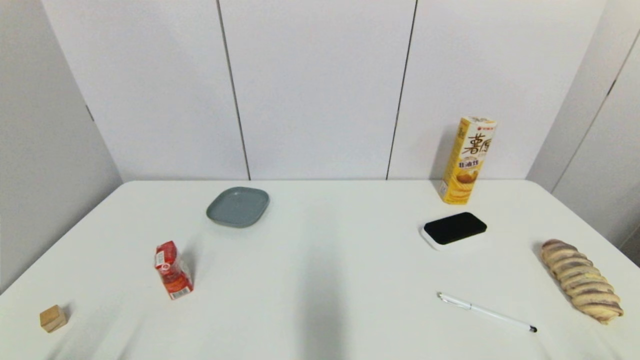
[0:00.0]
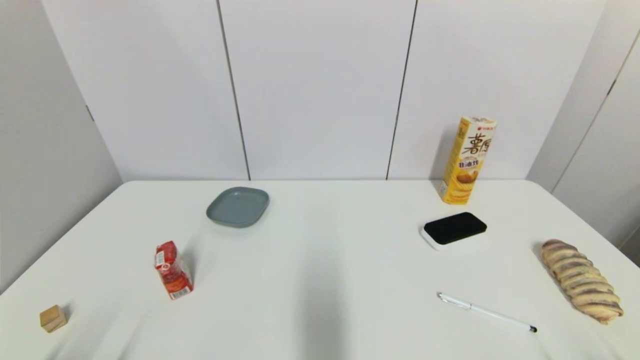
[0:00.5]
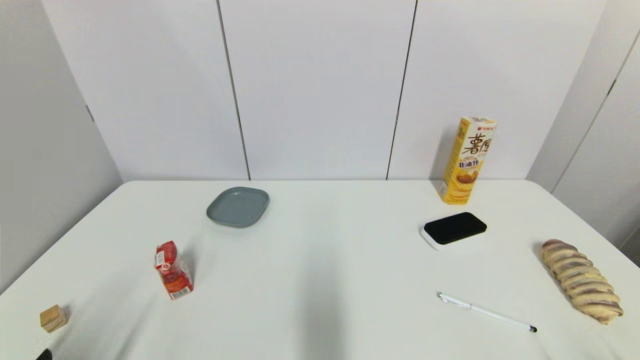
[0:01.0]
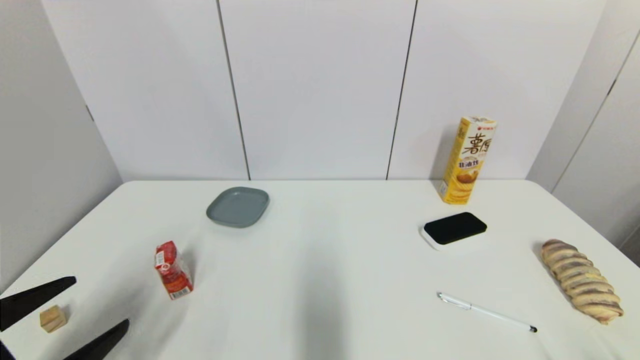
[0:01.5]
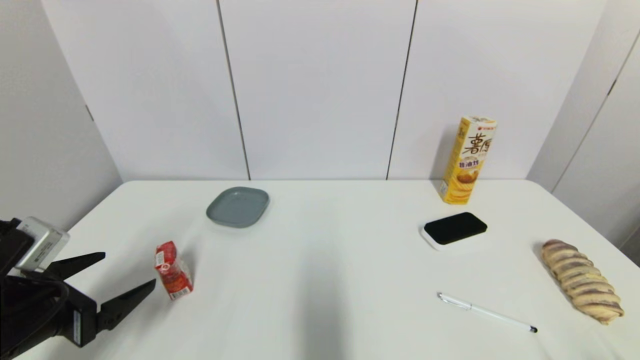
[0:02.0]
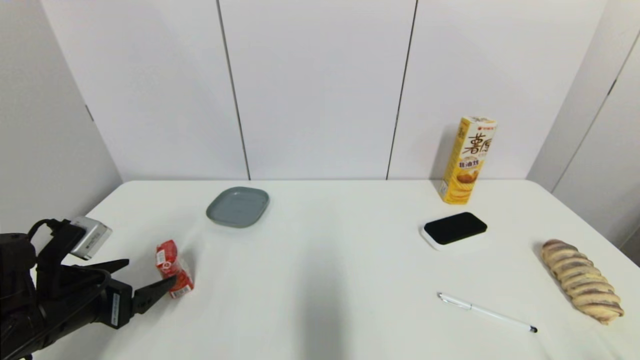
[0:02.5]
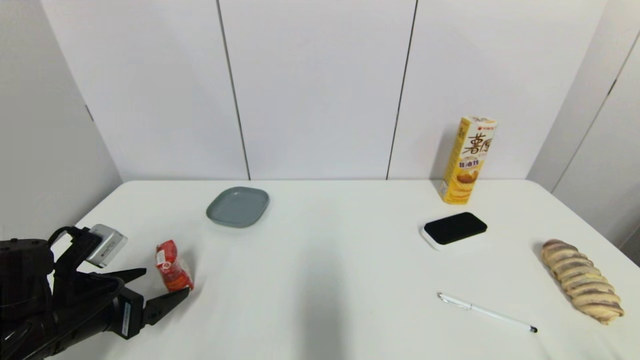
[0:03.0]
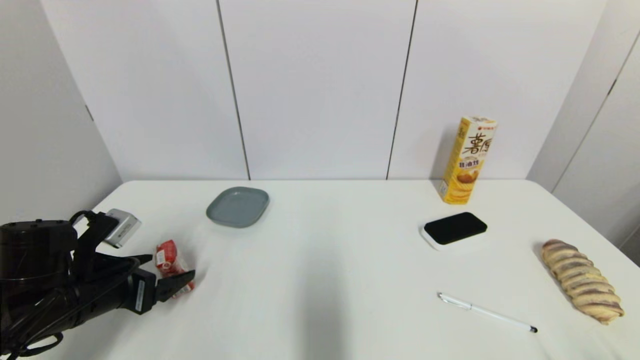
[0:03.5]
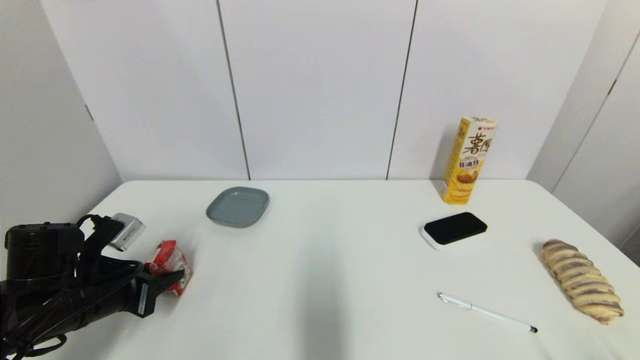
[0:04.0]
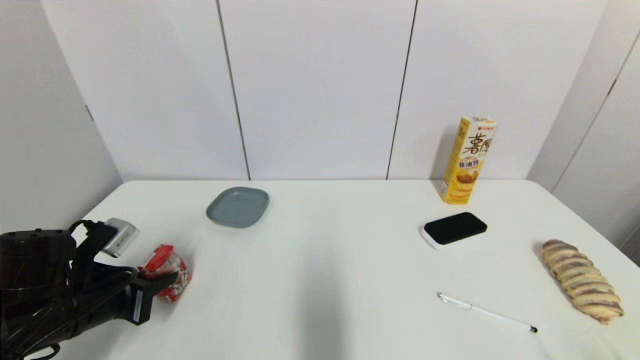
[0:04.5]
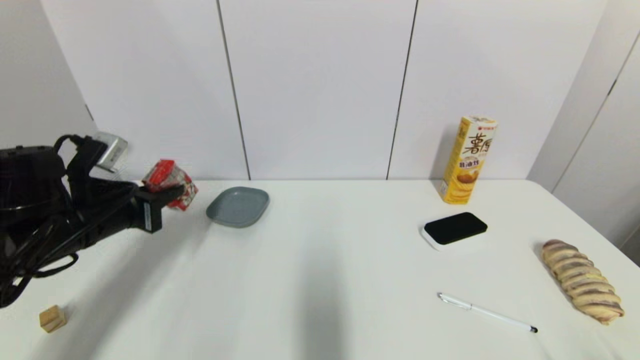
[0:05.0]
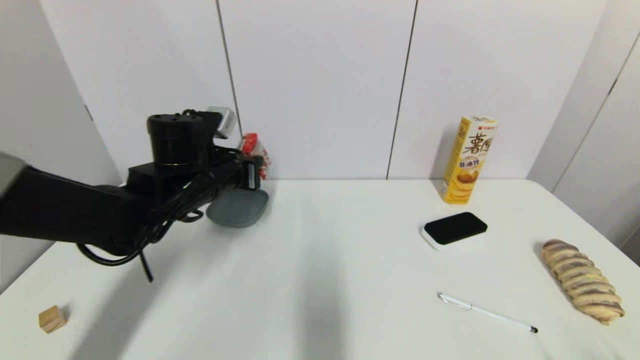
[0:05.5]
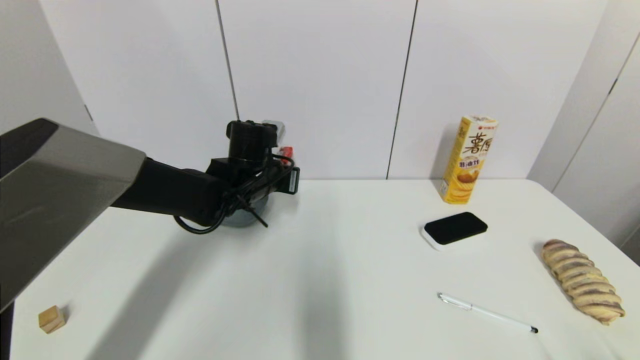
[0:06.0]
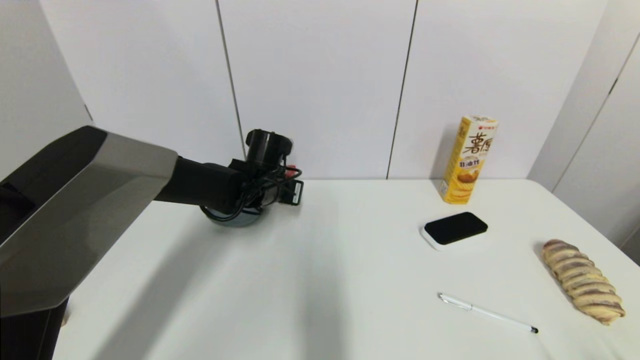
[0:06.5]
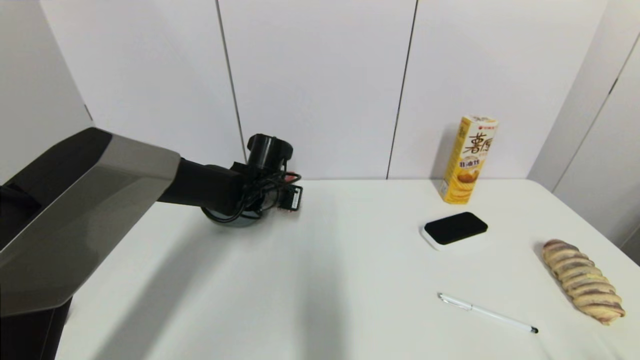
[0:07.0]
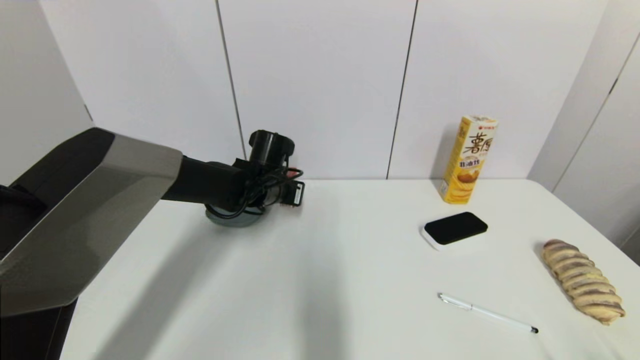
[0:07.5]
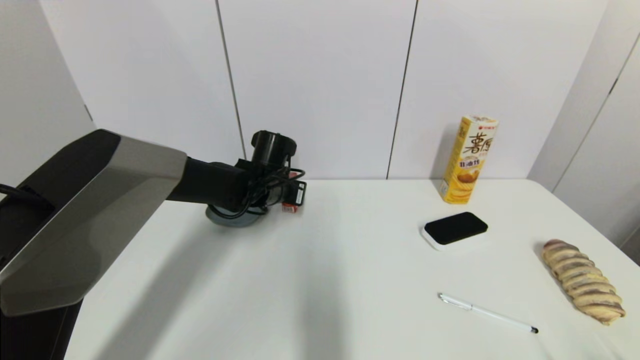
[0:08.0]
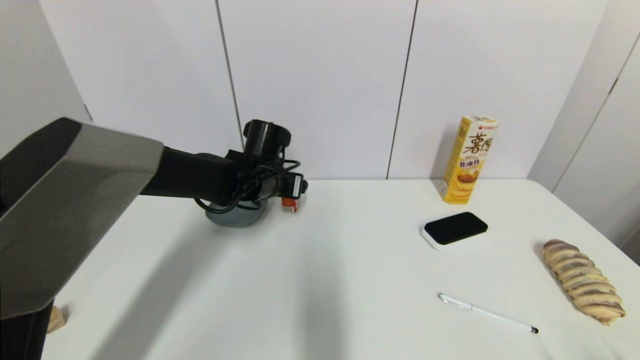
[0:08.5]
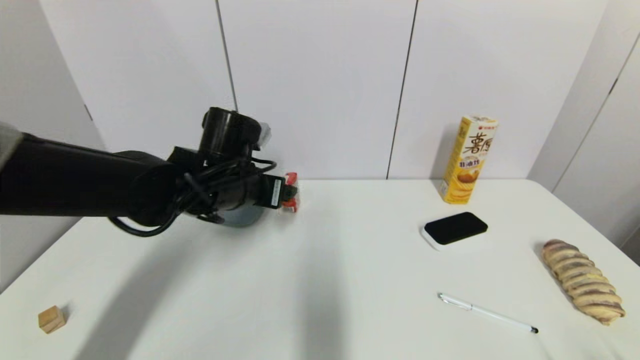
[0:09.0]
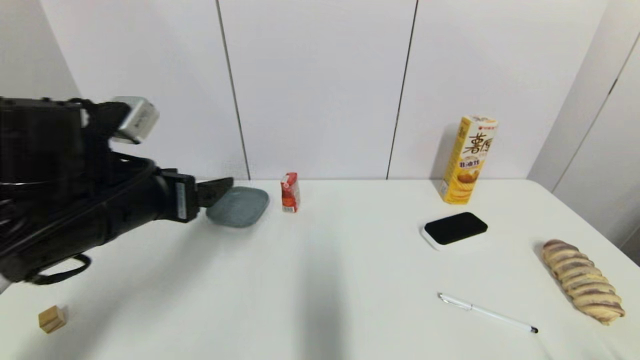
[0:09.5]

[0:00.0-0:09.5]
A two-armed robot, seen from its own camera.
Step, 0:01.0 to 0:04.0: Grasp the wangzai milk with left gripper.
Step, 0:04.5 to 0:07.5: Place the wangzai milk on the table with left gripper.
0:00.0 to 0:02.0: The left gripper goes approximately 15 cm forward and upward.
0:02.0 to 0:04.0: The left gripper is displaced forward by some 5 cm, and closes its fingers.
0:04.0 to 0:05.5: The left gripper goes roughly 20 cm to the right, forward and upward.
0:05.5 to 0:07.5: The left gripper moves forward, to the right and downward, roughly 10 cm.
0:07.5 to 0:09.5: The left gripper goes approximately 25 cm backward, to the left and upward, and opens up.

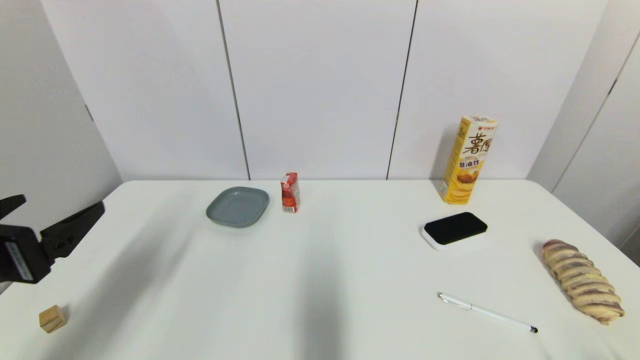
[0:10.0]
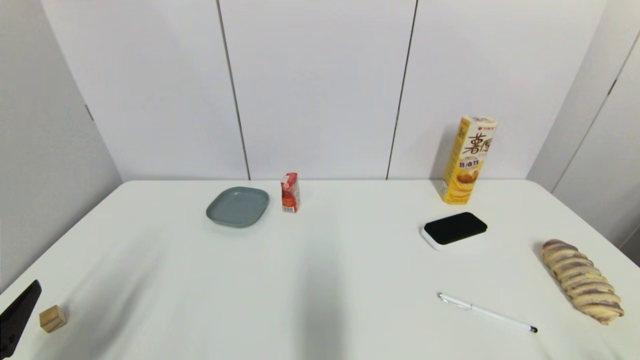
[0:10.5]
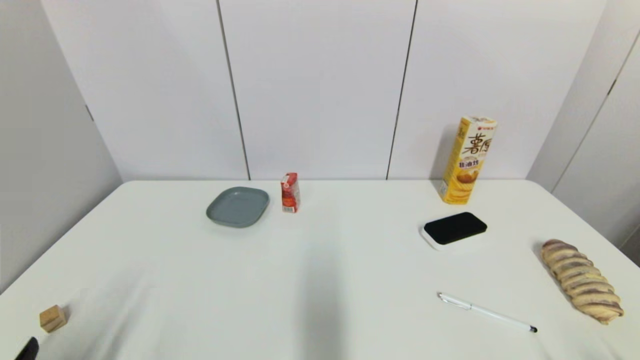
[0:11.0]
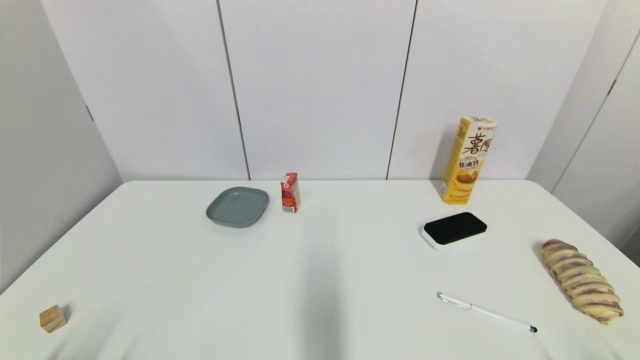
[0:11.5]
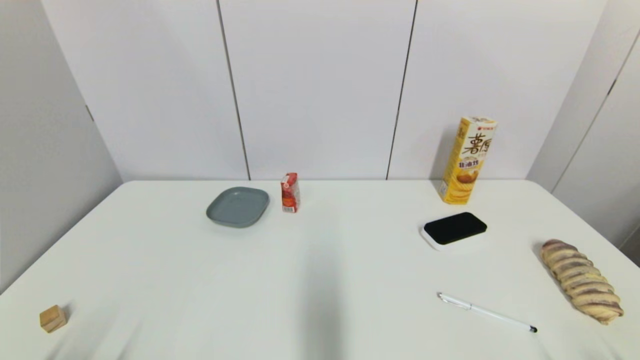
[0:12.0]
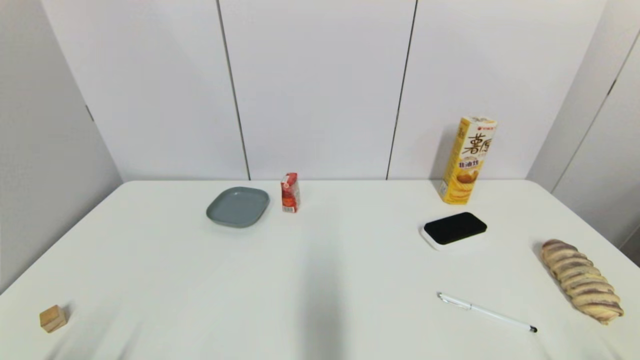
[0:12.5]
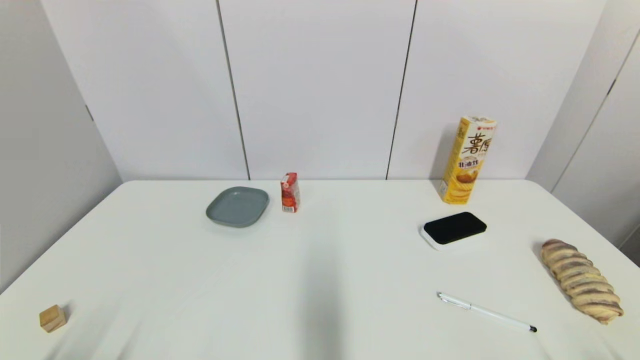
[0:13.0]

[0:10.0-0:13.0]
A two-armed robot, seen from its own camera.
0:10.0 to 0:11.5: The left gripper travels downward and backward by some 20 cm.

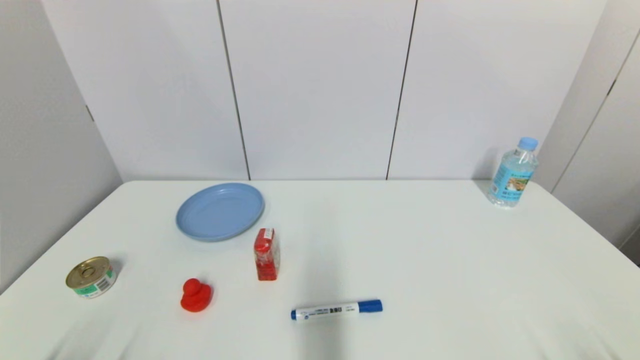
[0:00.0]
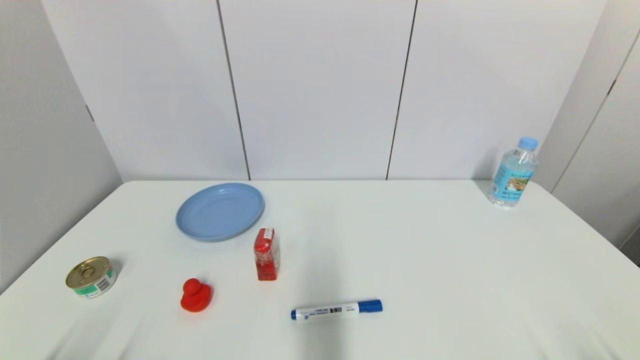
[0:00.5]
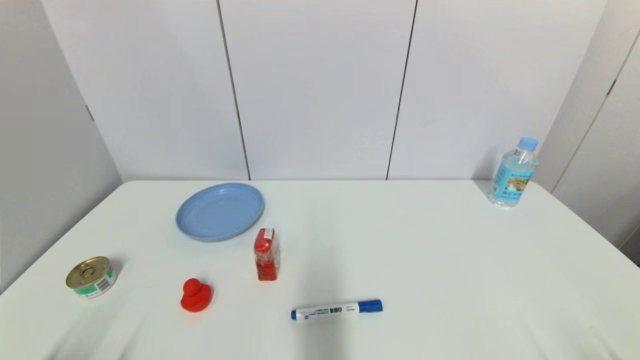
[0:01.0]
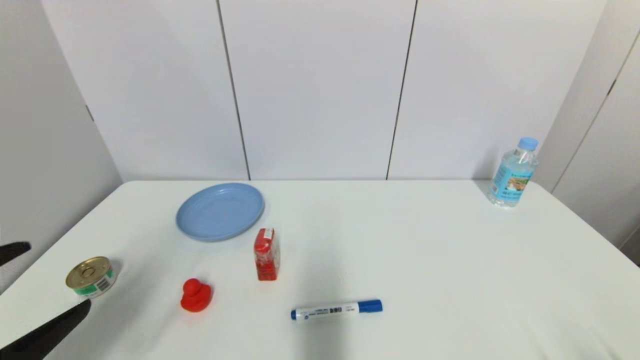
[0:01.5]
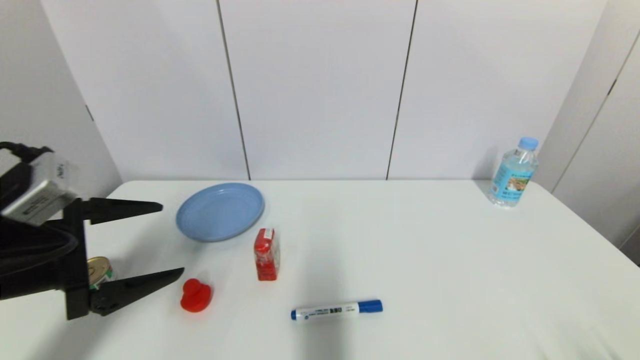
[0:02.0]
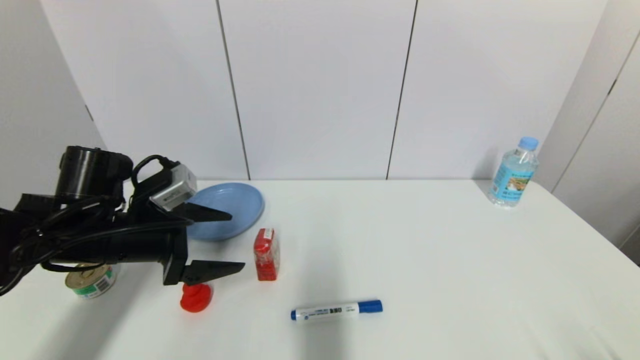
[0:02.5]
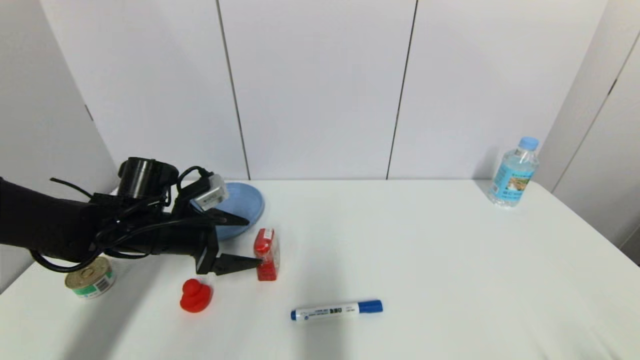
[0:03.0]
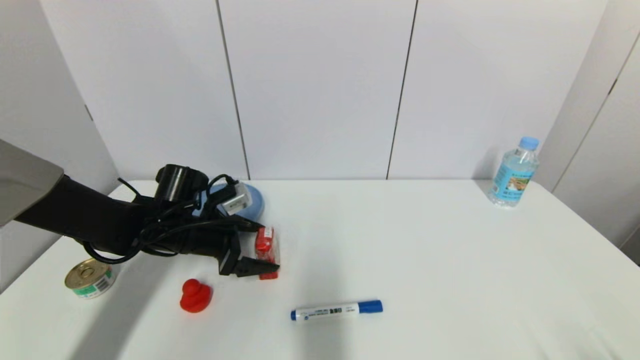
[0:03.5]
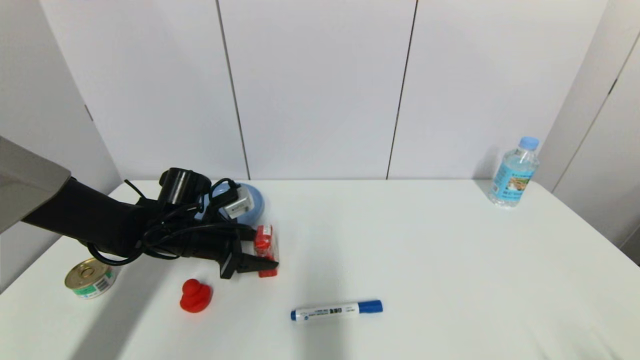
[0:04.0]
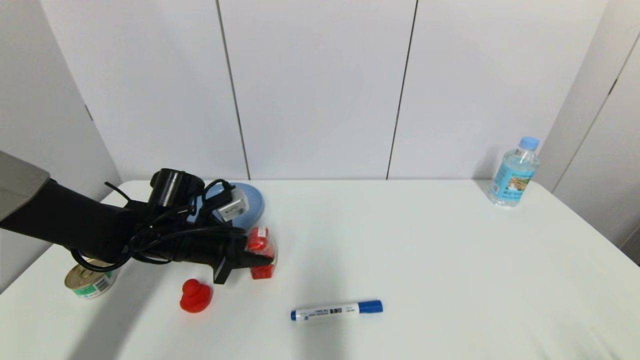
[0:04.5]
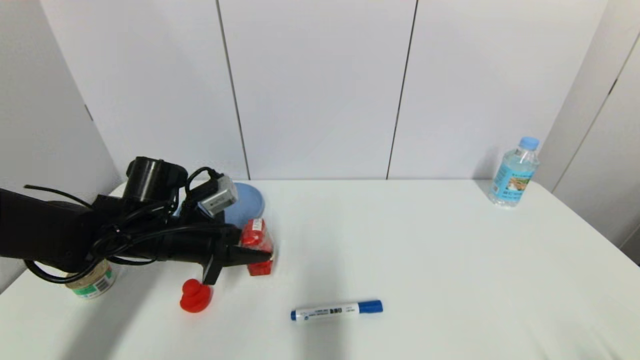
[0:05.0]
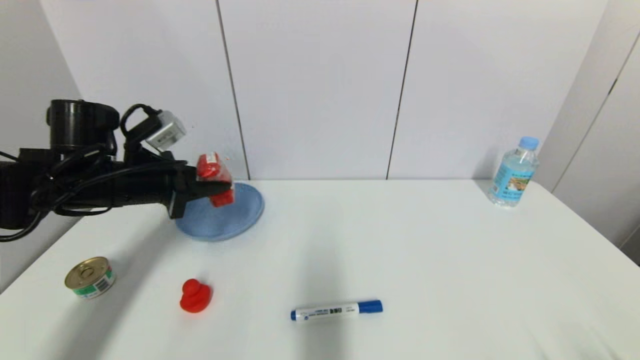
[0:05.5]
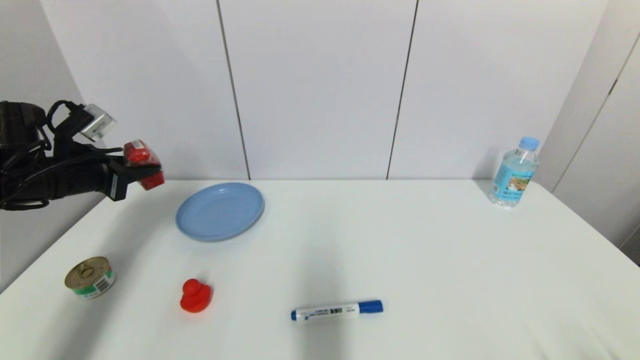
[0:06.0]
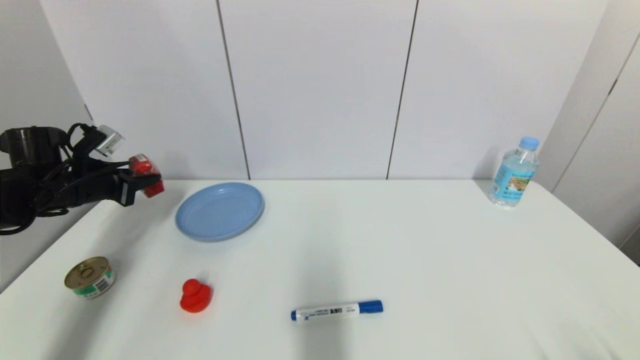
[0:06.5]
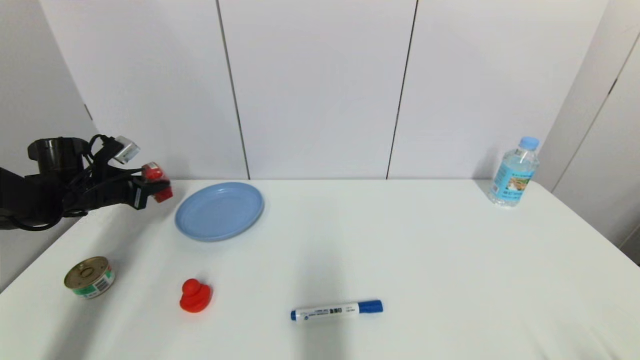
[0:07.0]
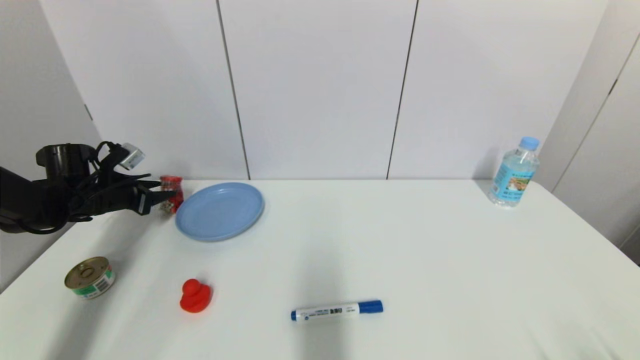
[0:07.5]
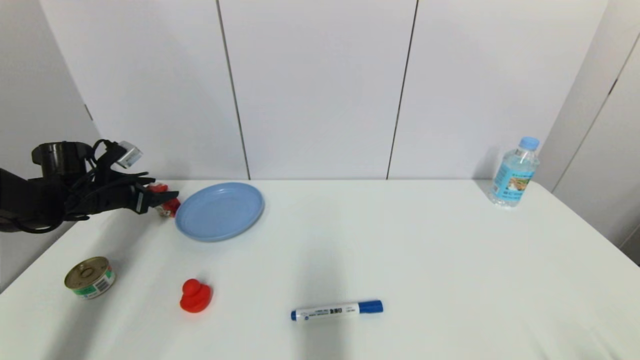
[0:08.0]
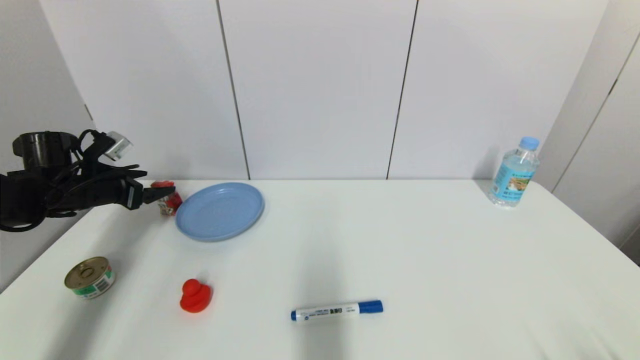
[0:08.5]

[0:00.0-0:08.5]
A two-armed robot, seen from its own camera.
Step, 0:01.5 to 0:04.5: Grasp the wangzai milk with left gripper.
Step, 0:05.0 to 0:07.5: Place the wangzai milk on the table with left gripper.
0:00.0 to 0:02.0: The left gripper travels forward and upward by some 25 cm.
0:02.0 to 0:04.0: The left gripper shifts roughly 20 cm forward, downward and to the right, and closes.
0:04.0 to 0:06.5: The left gripper goes some 20 cm to the left, and closes.
0:06.5 to 0:08.5: The left gripper opens up.
